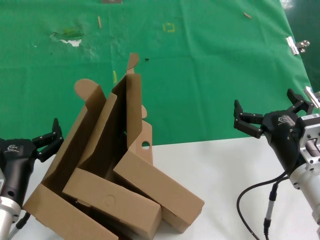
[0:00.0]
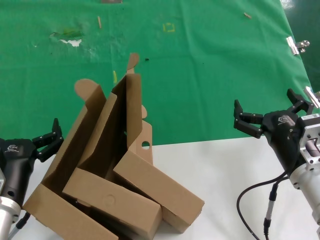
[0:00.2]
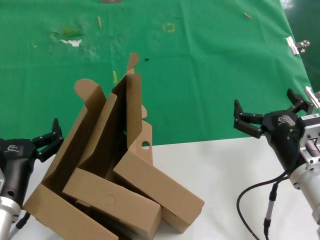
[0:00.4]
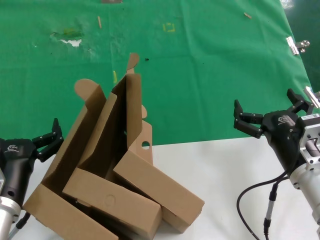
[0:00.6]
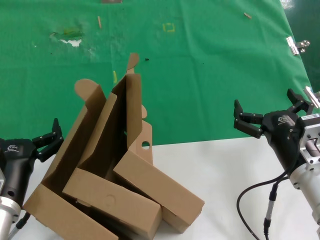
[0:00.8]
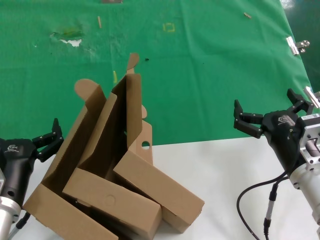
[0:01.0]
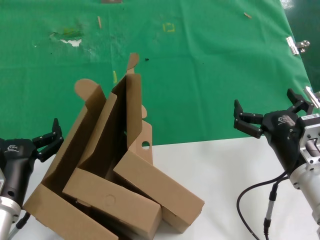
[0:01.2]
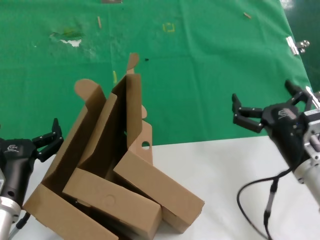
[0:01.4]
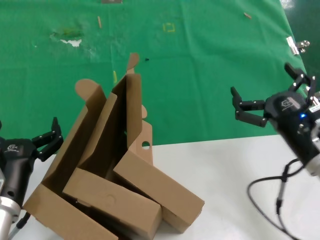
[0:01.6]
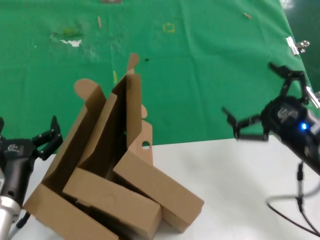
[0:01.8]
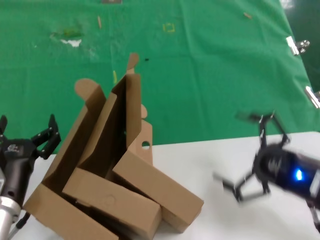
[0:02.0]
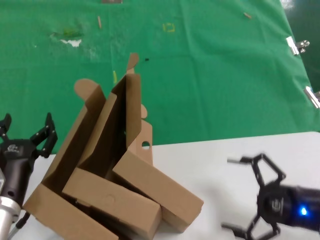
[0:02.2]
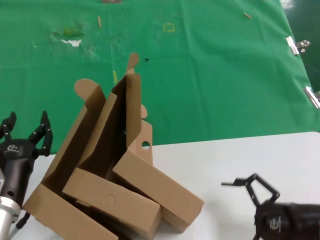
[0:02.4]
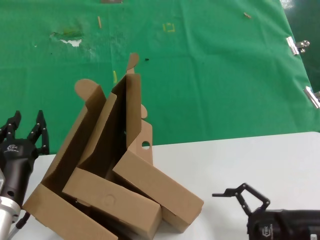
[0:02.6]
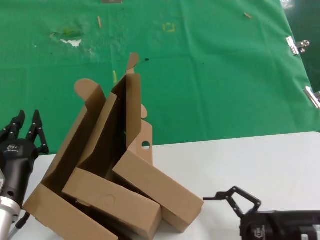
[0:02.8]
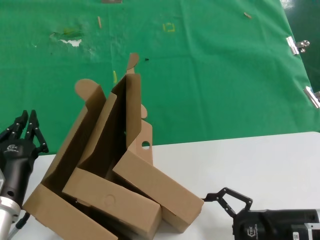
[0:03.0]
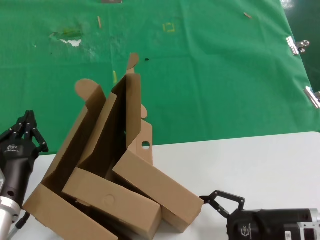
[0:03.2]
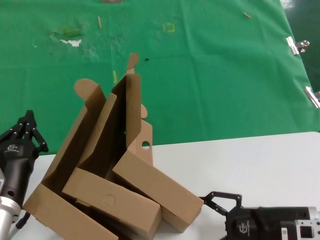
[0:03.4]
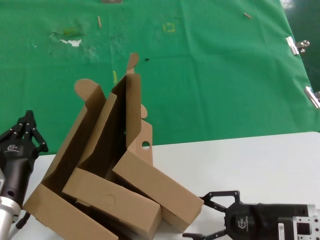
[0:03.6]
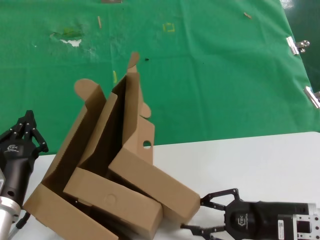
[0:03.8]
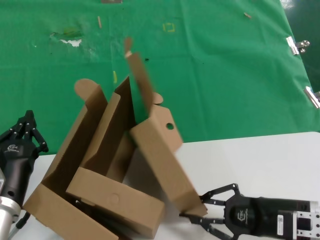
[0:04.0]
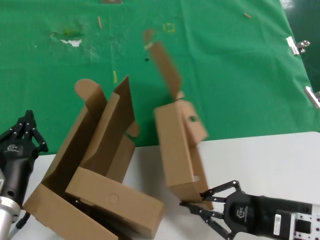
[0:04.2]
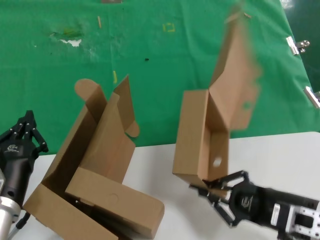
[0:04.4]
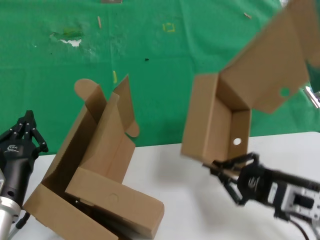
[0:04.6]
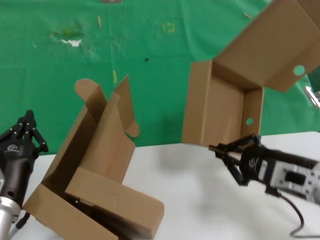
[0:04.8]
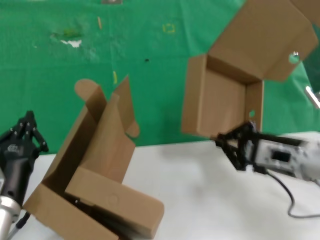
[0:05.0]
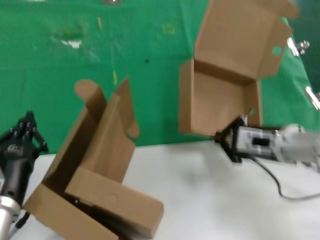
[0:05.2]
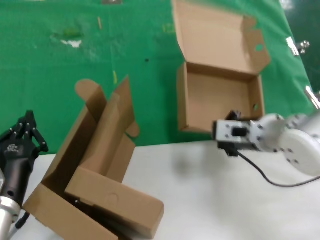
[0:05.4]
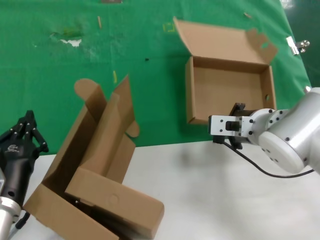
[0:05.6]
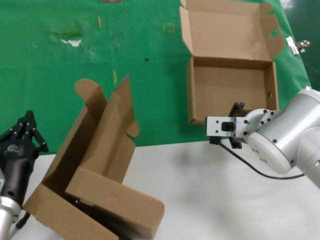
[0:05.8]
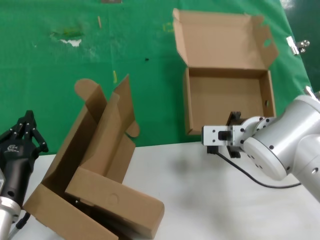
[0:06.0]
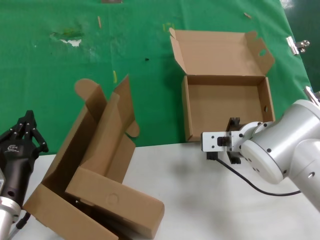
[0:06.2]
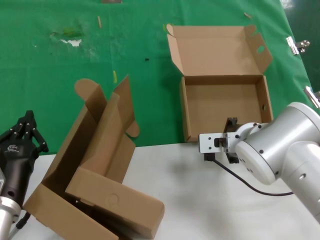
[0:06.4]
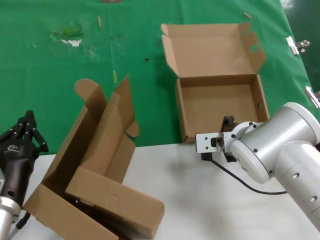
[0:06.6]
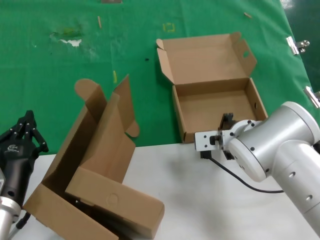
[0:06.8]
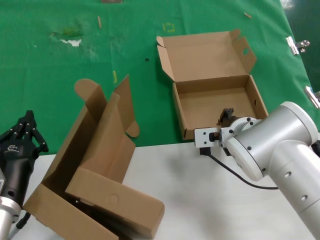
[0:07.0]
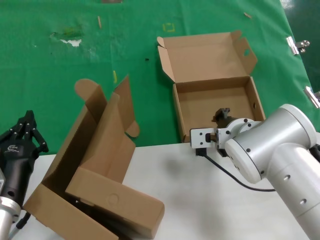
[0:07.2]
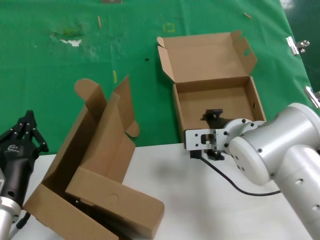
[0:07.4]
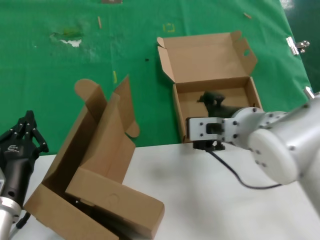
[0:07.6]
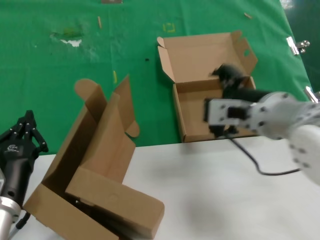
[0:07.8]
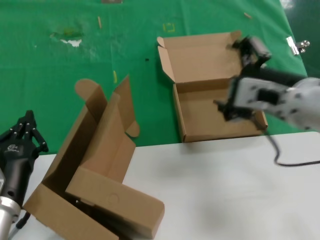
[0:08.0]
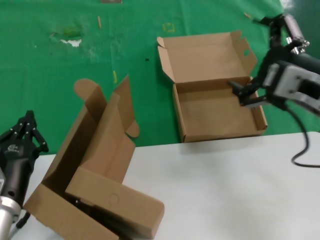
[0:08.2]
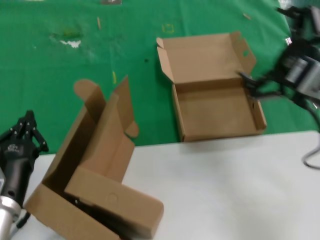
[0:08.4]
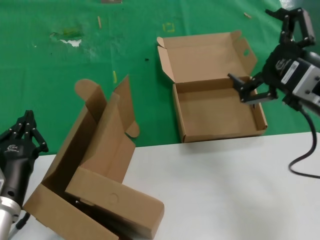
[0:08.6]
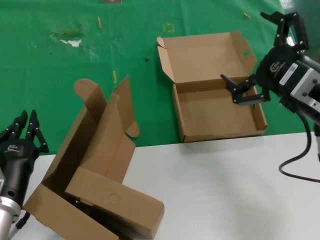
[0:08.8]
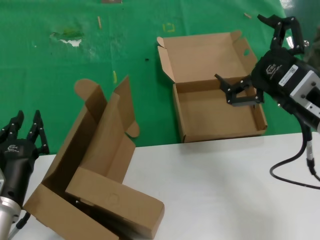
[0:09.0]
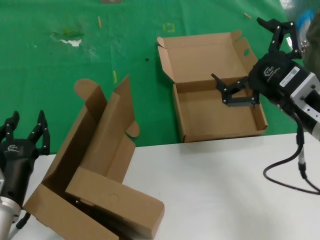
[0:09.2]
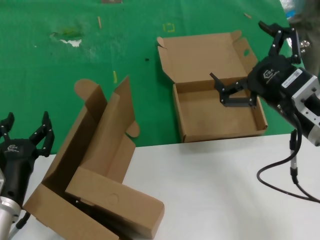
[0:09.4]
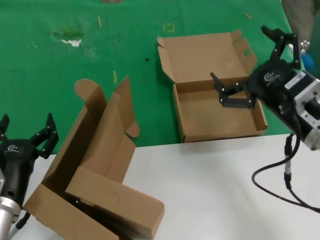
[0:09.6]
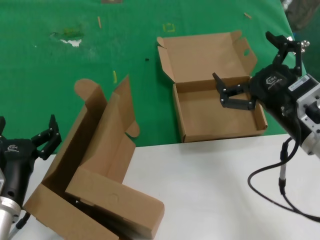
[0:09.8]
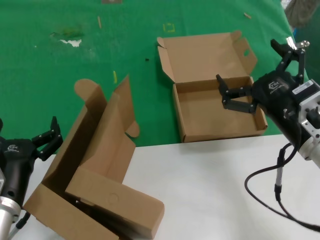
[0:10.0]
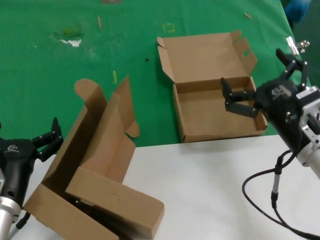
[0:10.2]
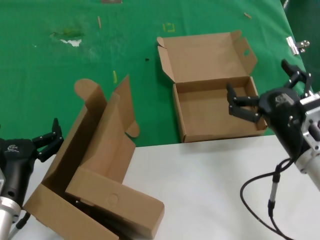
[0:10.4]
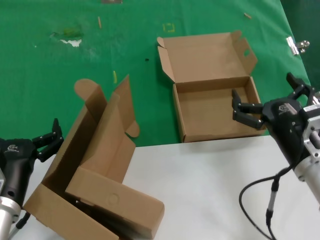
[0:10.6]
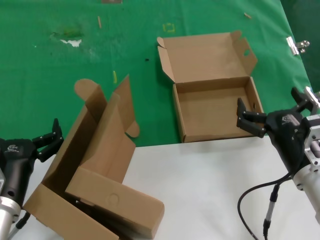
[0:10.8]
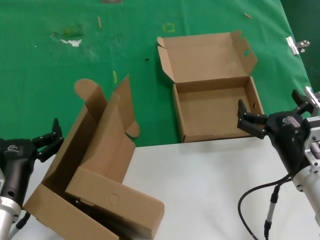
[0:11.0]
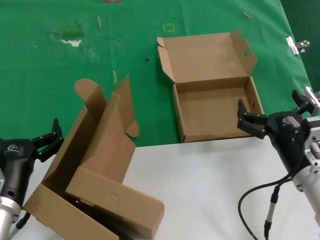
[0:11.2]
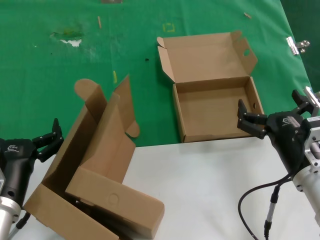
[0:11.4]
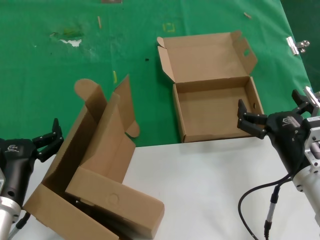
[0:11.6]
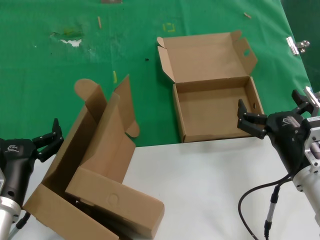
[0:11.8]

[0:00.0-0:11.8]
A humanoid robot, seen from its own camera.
Task of the whole recording: pick up the paper box and put it at the back.
Step, 0:00.0 to 0:04.0: Grasp the paper box.
Step, 0:04.4 to 0:07.6: Place the paper box on the table.
0:00.0 to 0:01.4: Both hands stay about where they are.
0:01.4 to 0:03.0: The right hand goes some 10 cm to the right and downward.
0:03.0 to 0:04.4: The right hand shifts by roughly 5 cm.
0:04.4 to 0:06.0: The right hand travels forward, to the left and upward by some 20 cm.
0:07.4 to 0:08.8: The right hand travels to the right, backward and upward by about 20 cm.
0:08.8 to 0:10.4: The right hand heads downward, covering some 15 cm.
0:10.4 to 0:11.8: The hands move only a little.
